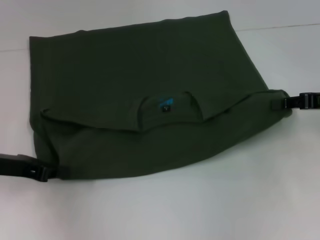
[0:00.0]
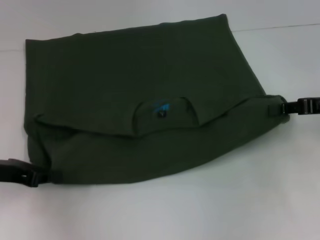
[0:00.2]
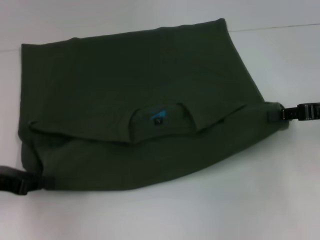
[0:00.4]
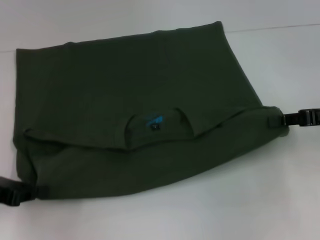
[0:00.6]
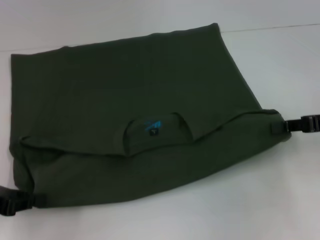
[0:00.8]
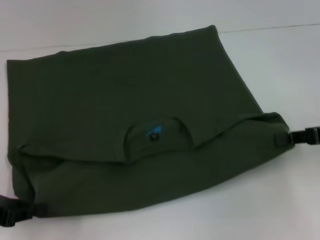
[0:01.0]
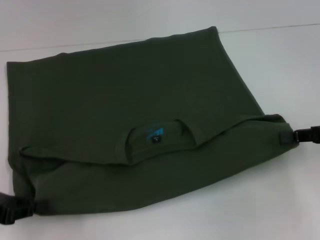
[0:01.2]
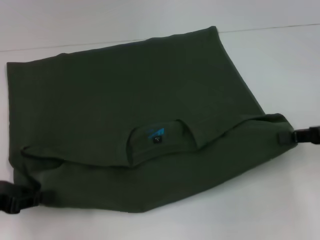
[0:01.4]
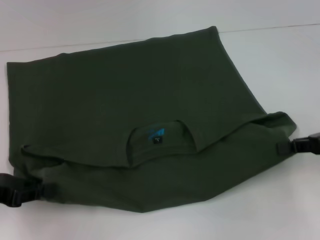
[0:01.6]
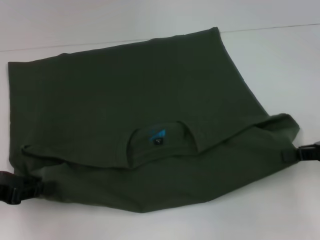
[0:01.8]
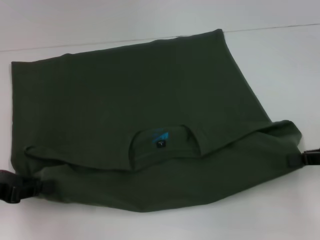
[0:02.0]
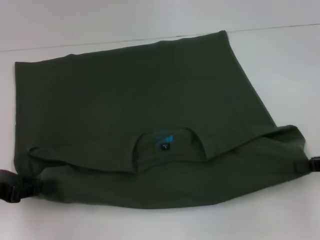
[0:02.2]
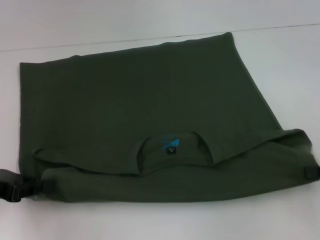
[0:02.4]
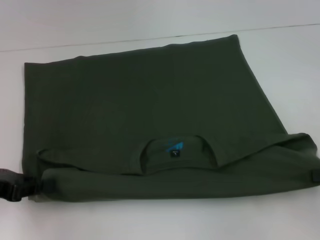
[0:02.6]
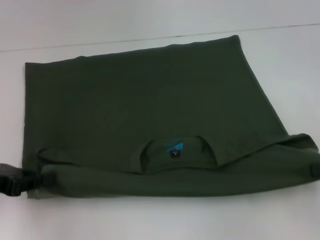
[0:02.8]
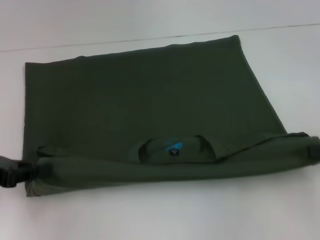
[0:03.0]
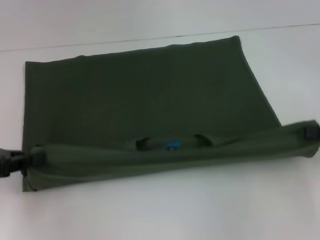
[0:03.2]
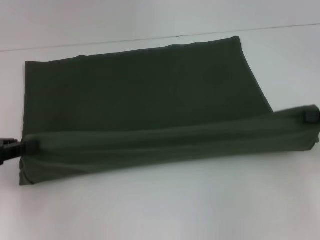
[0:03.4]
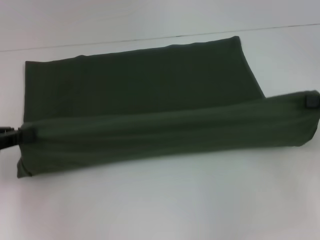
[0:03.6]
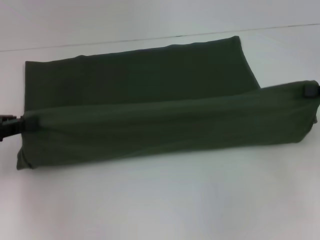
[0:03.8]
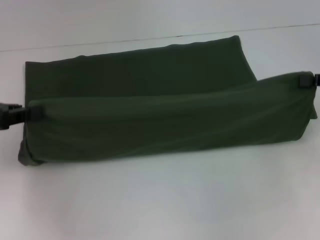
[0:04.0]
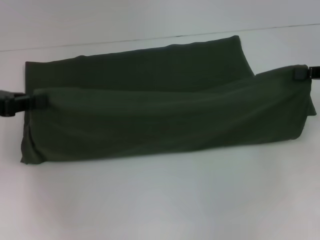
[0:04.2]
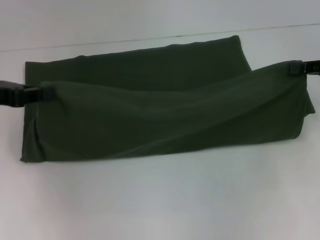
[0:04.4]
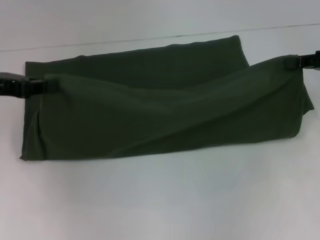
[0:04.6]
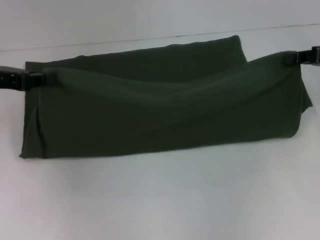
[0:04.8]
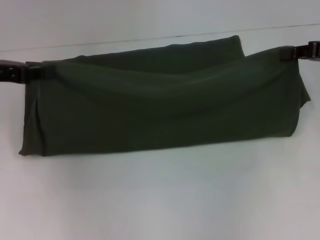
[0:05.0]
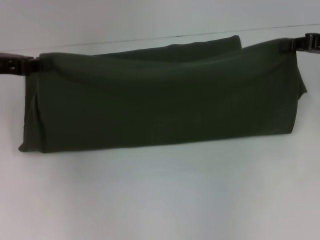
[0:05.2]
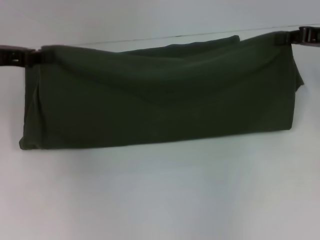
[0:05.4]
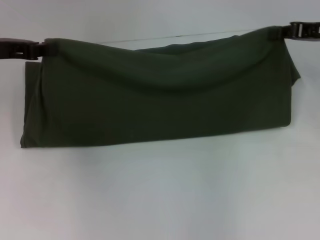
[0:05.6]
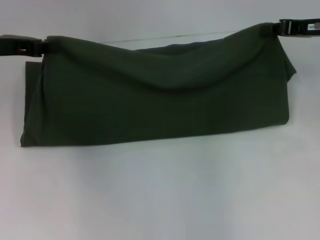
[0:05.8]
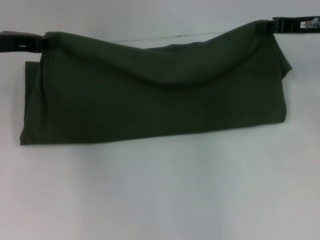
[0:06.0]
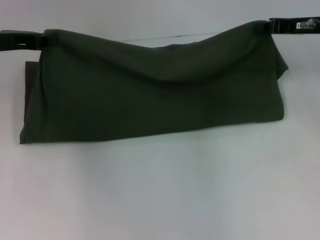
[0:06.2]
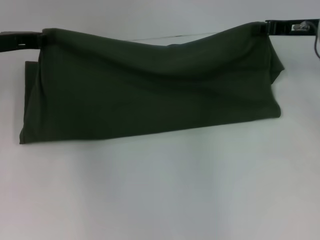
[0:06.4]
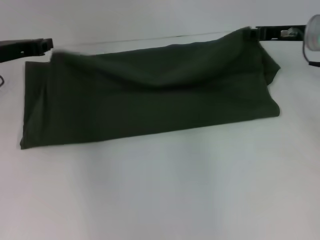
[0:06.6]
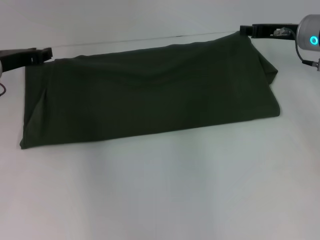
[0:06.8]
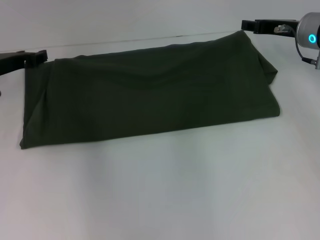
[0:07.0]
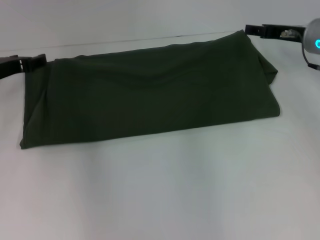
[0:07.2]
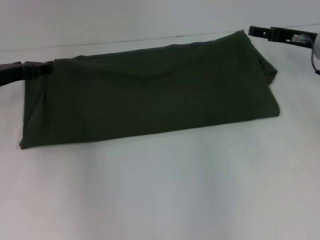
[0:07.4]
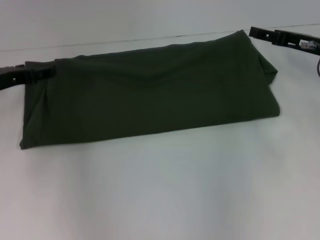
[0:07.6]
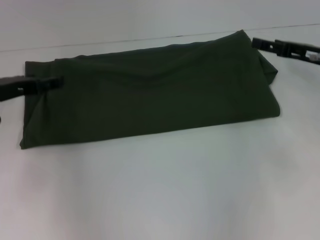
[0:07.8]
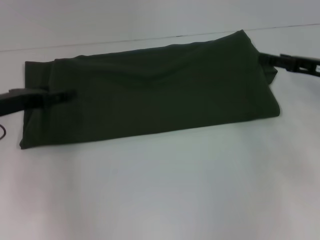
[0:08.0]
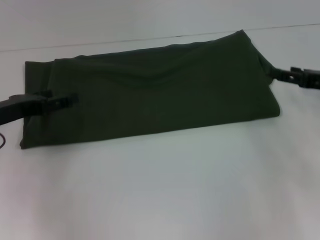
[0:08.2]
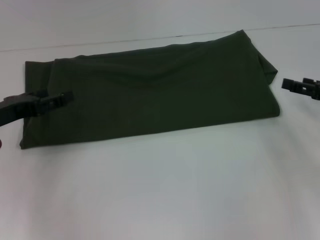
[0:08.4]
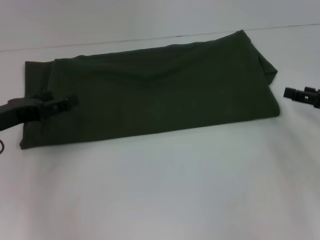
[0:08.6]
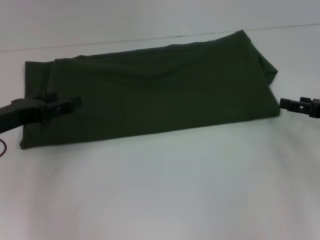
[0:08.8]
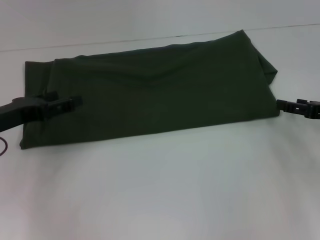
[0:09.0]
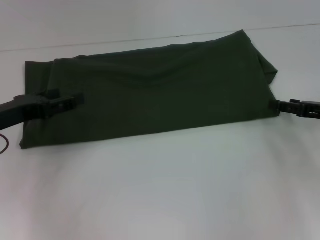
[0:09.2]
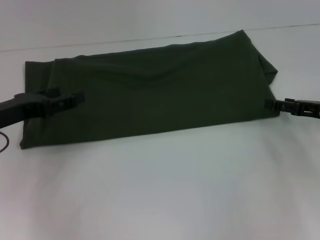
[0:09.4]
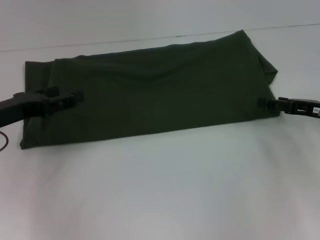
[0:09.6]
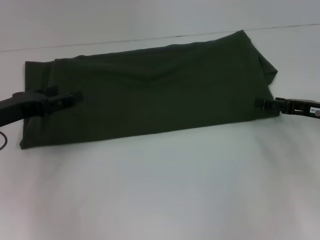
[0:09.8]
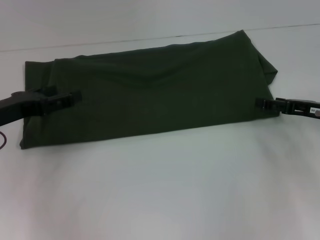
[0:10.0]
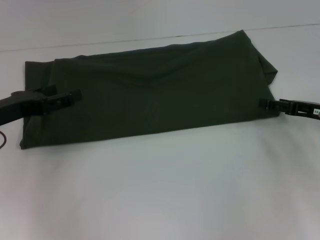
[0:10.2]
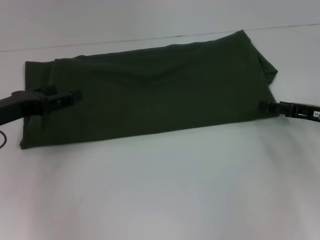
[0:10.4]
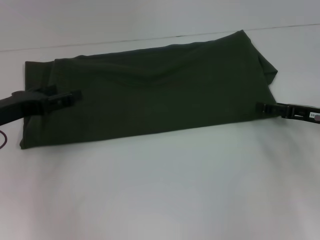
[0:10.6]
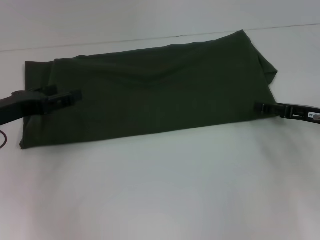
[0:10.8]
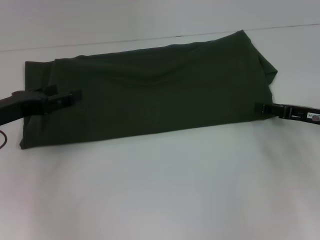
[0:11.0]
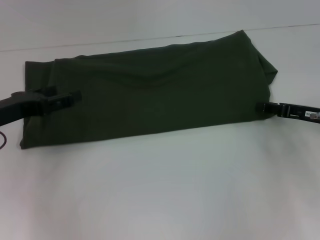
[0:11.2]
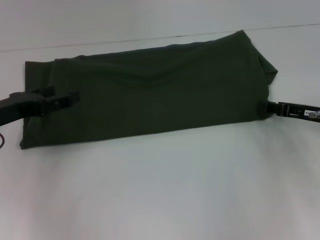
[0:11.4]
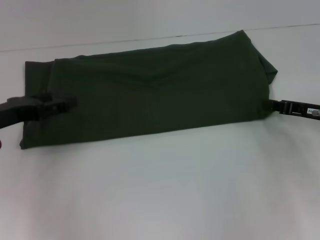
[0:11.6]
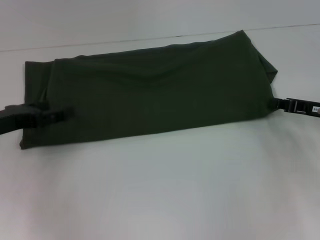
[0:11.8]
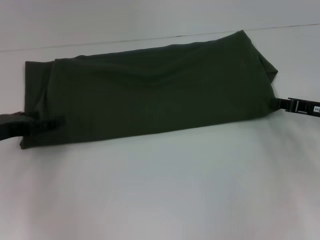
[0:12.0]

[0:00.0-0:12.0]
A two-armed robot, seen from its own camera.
Step, 0:00.0 to 0:02.8: Pull the clothes with your left hand.
Step, 0:00.0 to 0:02.8: Pull the clothes with your right hand.
Step, 0:03.0 to 0:06.6: Fold the clothes with your left hand.
0:00.0 to 0:01.6: The left gripper moves approximately 5 cm.
0:01.6 to 0:03.0: The right gripper shifts by some 5 cm.
0:03.0 to 0:04.4: The two grippers go about 10 cm forward.
0:04.4 to 0:06.0: The left gripper is displaced forward by roughly 5 cm. The right gripper shifts some 10 cm forward and to the left.
0:06.0 to 0:07.6: The right gripper ends up some 5 cm from where it was, and opens; the left gripper heads downward, covering approximately 5 cm, and opens its fingers.
0:07.6 to 0:09.0: The left gripper goes roughly 5 cm backward. Meanwhile the right gripper goes about 10 cm backward and to the right.
0:09.0 to 0:10.4: There are only small adjustments of the grippers.
0:10.4 to 0:12.0: The right gripper closes.

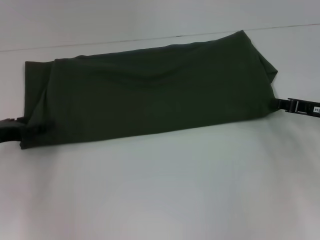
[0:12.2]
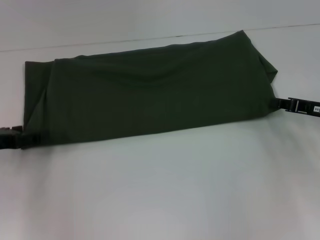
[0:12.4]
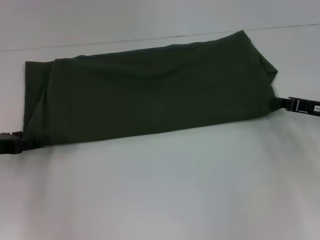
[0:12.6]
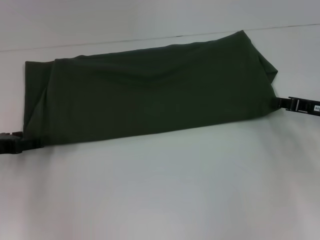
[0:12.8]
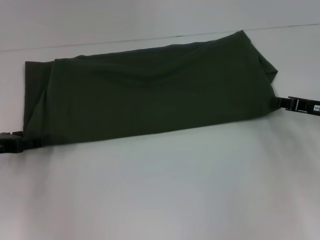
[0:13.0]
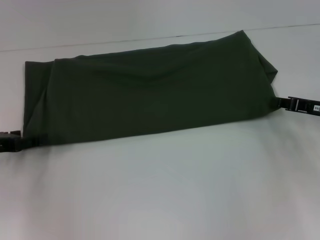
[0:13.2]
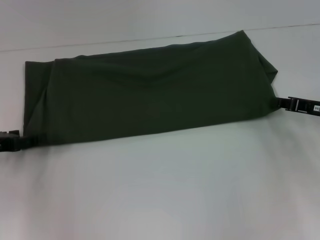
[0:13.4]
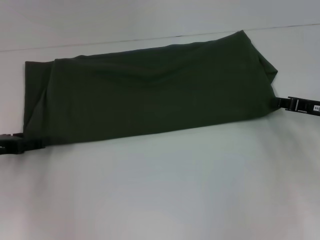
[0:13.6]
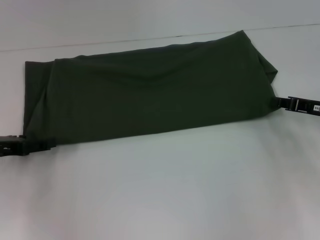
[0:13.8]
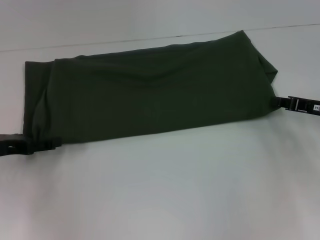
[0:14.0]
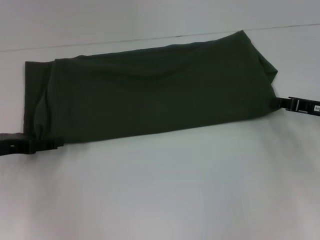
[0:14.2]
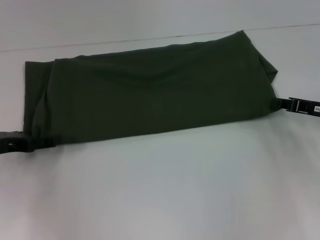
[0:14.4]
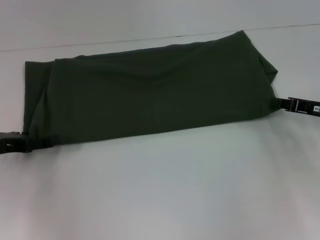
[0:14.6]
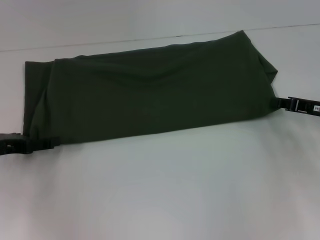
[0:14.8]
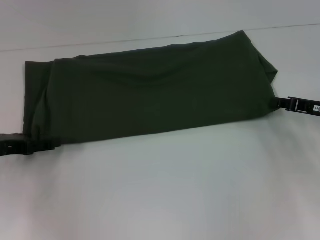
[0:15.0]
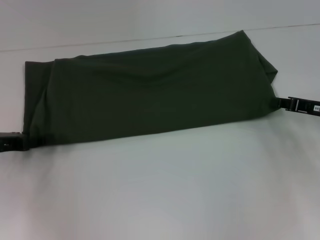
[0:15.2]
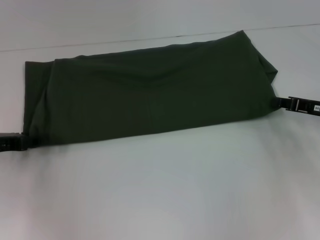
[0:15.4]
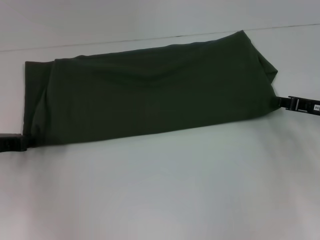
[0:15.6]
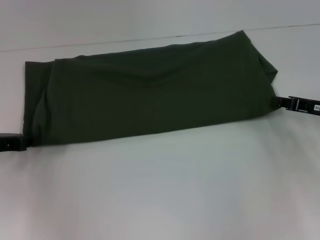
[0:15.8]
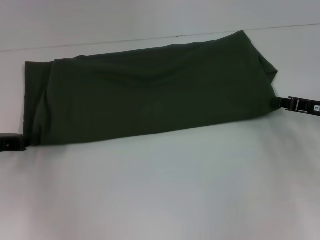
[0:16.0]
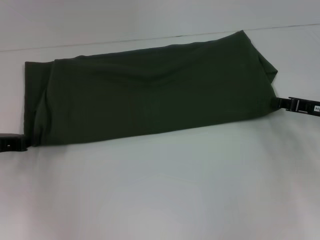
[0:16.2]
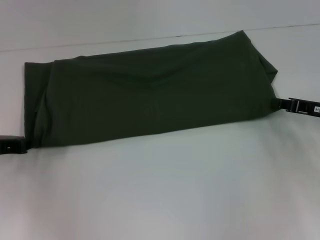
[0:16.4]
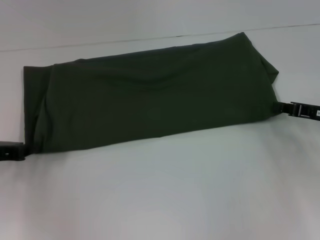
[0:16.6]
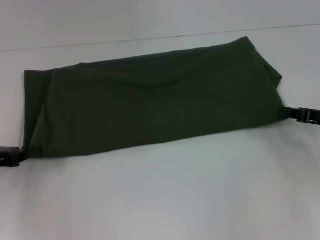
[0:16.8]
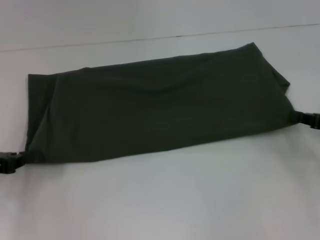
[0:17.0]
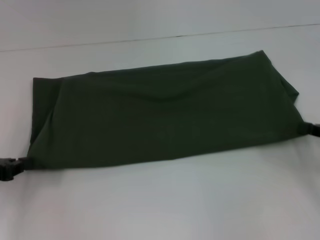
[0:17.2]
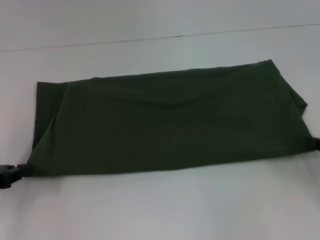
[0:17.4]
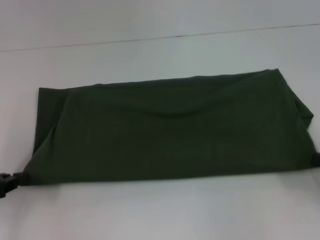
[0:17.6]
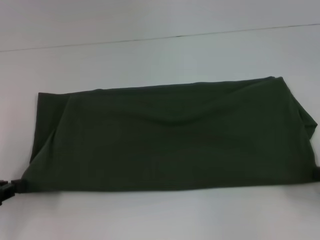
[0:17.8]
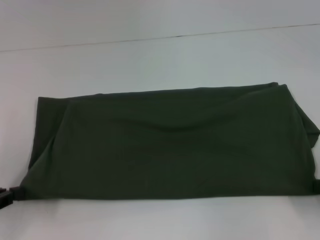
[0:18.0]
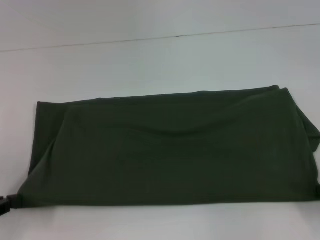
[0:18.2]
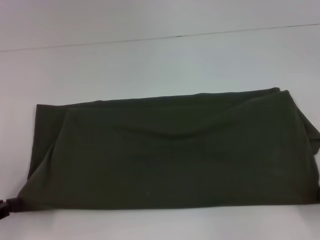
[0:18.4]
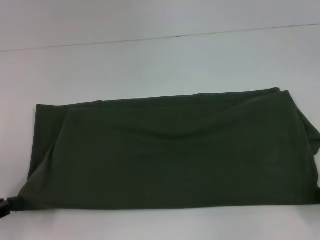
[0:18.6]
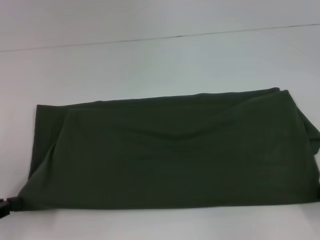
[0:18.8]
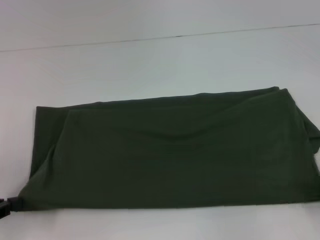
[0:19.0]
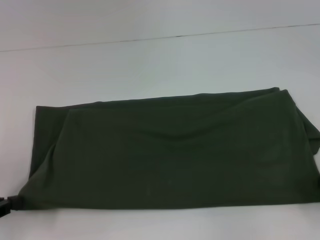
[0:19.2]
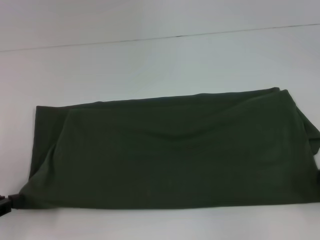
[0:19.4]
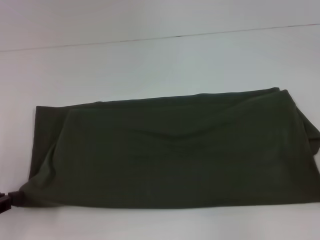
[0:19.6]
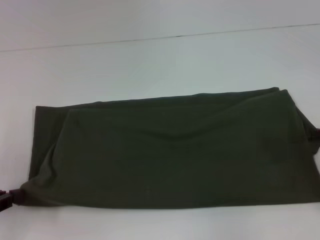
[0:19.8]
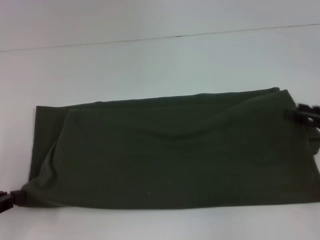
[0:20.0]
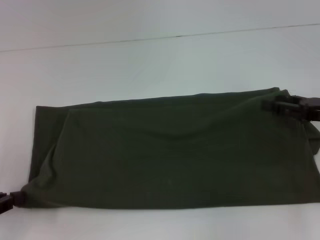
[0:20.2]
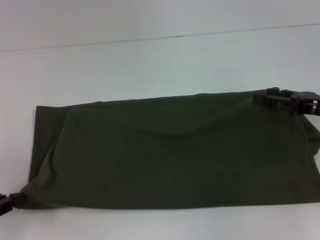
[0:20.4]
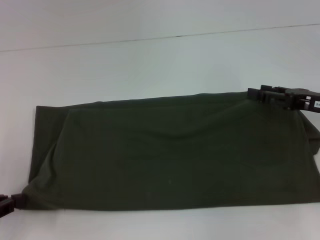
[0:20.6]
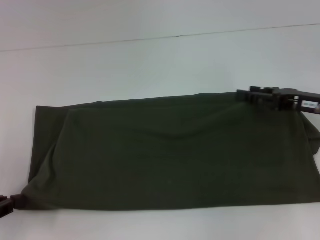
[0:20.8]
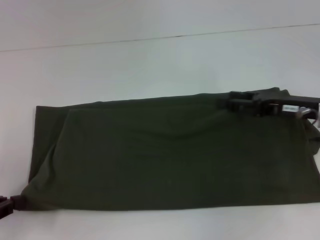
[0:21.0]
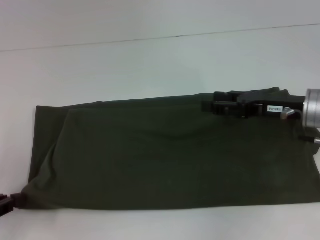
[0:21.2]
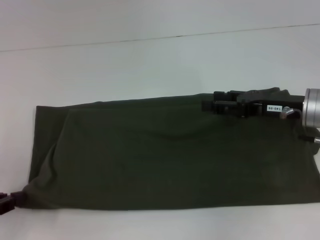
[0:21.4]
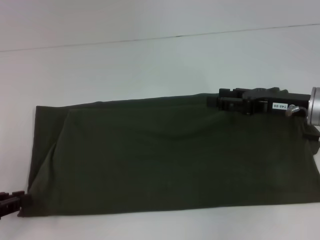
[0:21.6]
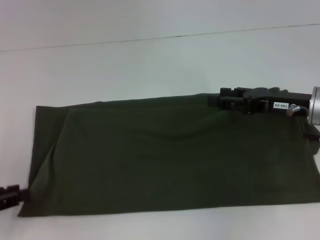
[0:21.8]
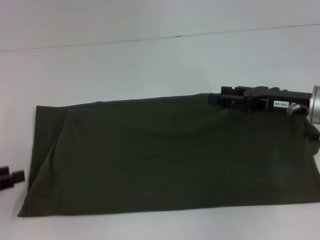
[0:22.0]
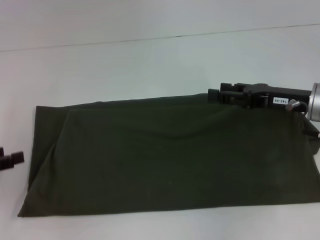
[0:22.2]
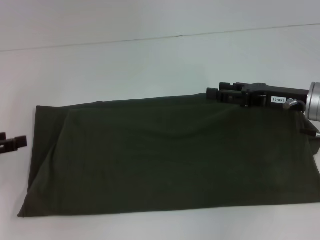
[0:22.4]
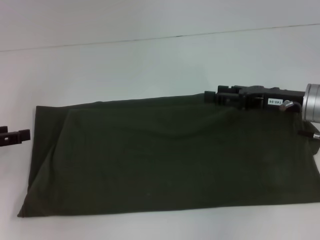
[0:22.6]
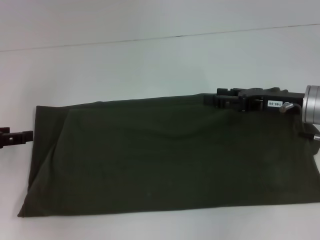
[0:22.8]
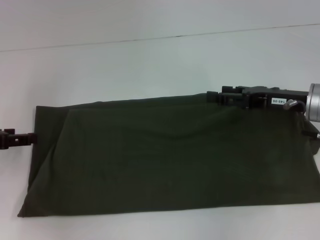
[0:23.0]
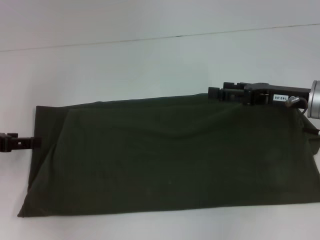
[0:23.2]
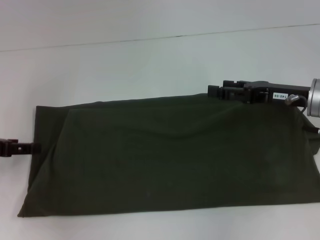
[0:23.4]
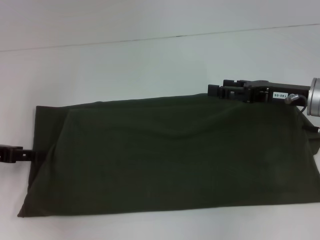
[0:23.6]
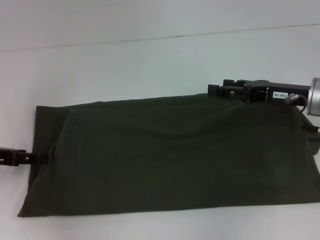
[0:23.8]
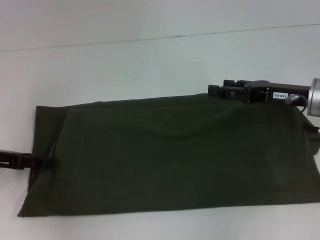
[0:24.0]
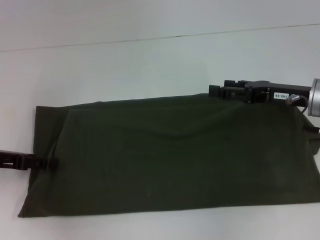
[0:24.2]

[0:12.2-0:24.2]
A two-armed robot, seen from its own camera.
Step, 0:12.2 to 0:18.6: Pull the clothes with your left hand.
Step, 0:12.2 to 0:18.6: Pull the clothes with your right hand.
0:12.2 to 0:13.8: The grippers move only a little.
0:13.8 to 0:15.2: Both grippers stay about where they are.
0:15.2 to 0:16.6: The left gripper closes its fingers.
0:16.6 to 0:18.2: The left gripper heads backward, covering some 10 cm, while the right gripper travels backward and to the right by roughly 15 cm.
0:18.2 to 0:19.8: The right gripper opens up.
0:19.8 to 0:21.2: The right gripper travels to the left and forward by approximately 15 cm.
0:21.2 to 0:22.6: The left gripper moves forward, about 10 cm, and opens.
0:22.6 to 0:24.2: The grippers stay close to where they were, moving slightly.
